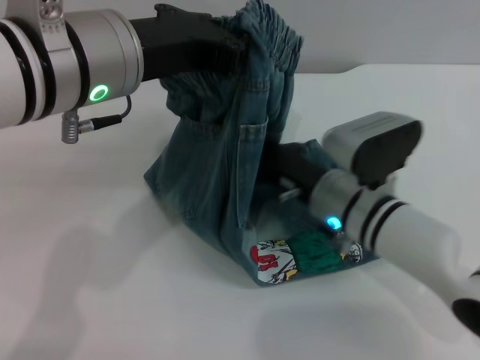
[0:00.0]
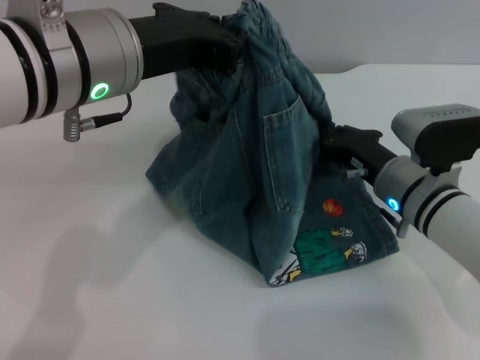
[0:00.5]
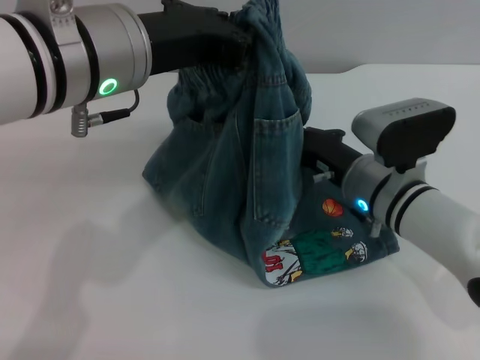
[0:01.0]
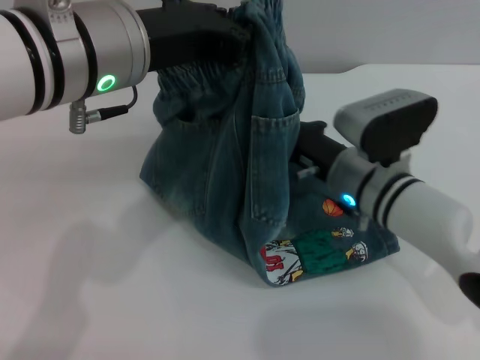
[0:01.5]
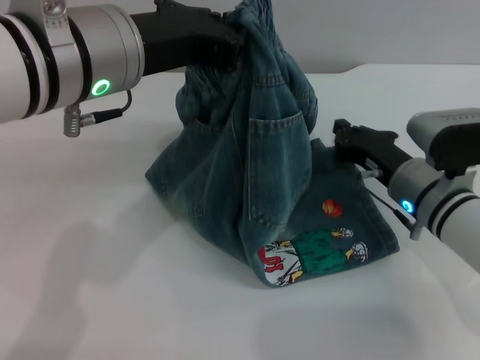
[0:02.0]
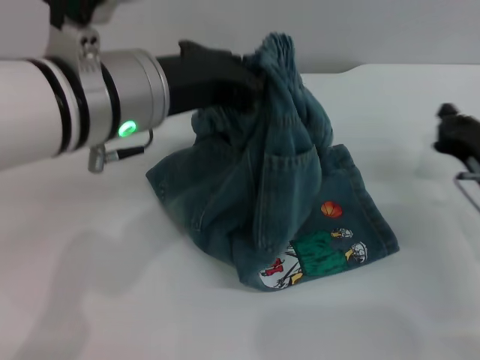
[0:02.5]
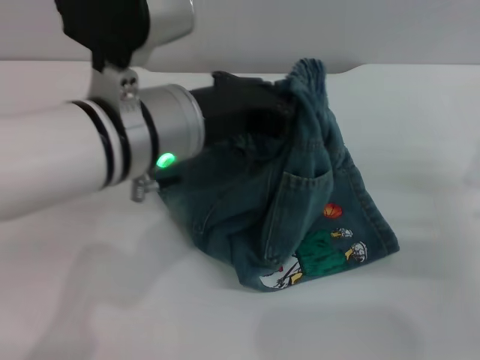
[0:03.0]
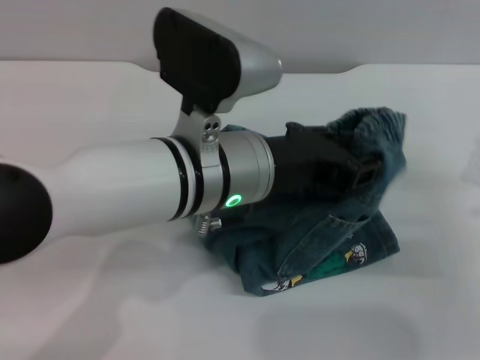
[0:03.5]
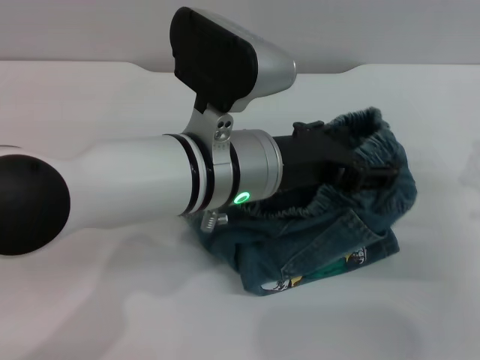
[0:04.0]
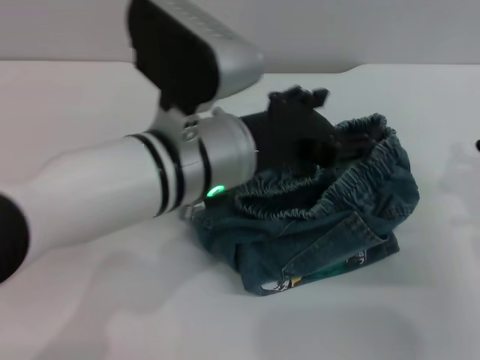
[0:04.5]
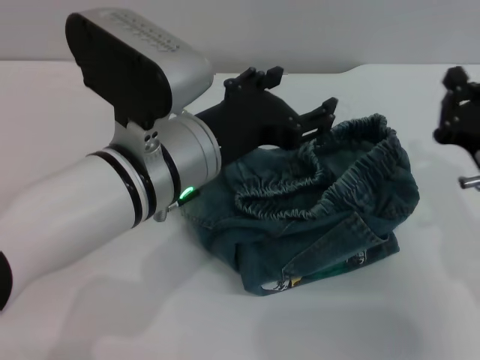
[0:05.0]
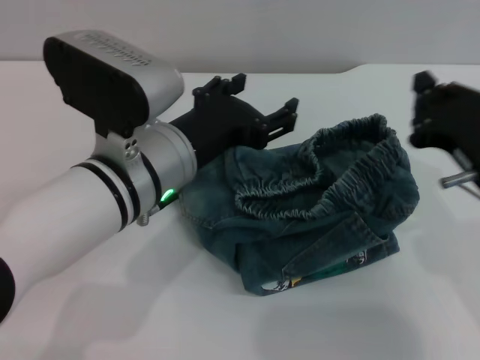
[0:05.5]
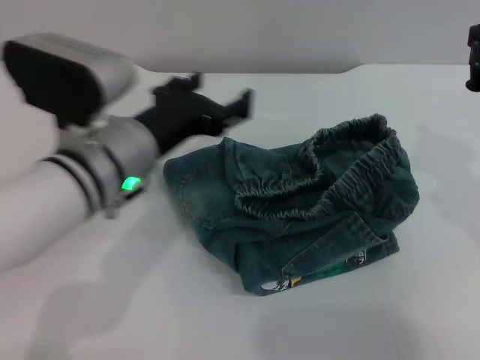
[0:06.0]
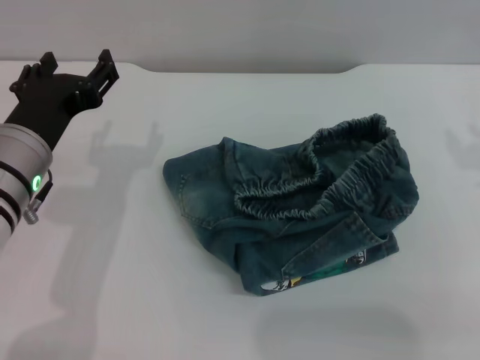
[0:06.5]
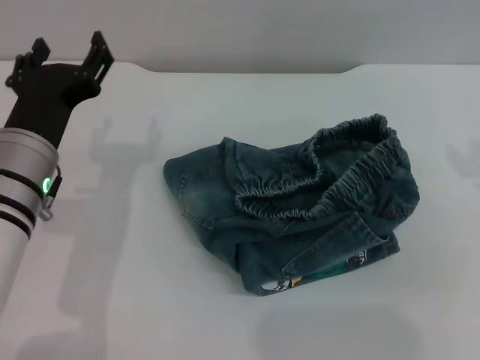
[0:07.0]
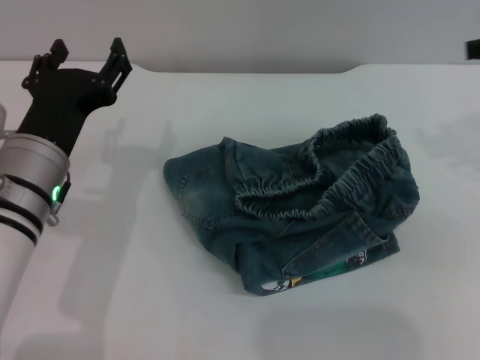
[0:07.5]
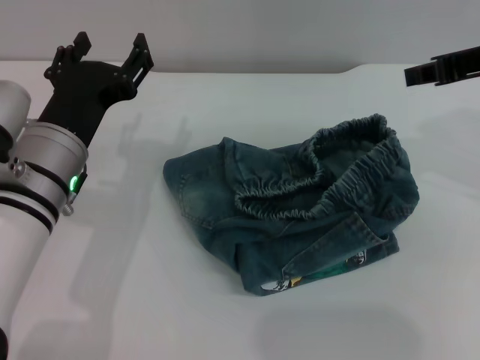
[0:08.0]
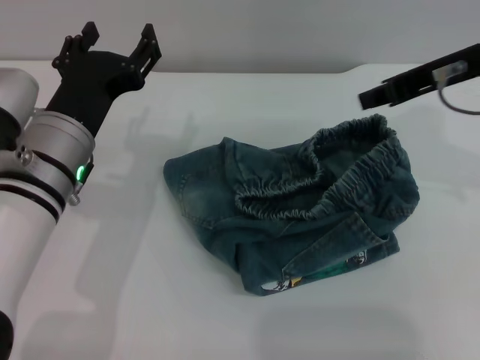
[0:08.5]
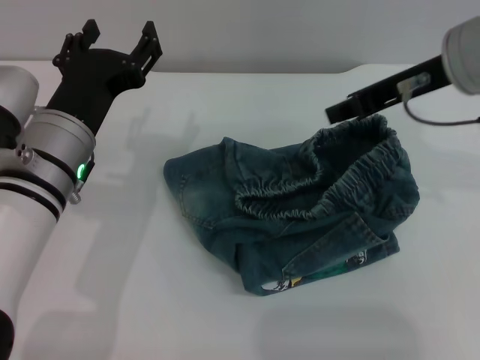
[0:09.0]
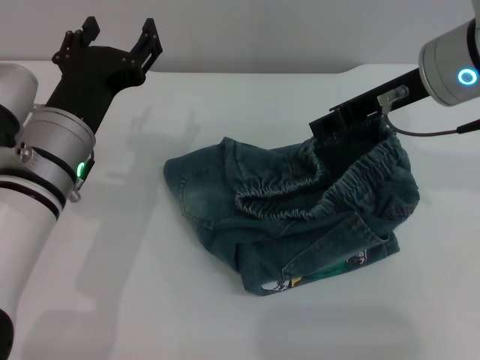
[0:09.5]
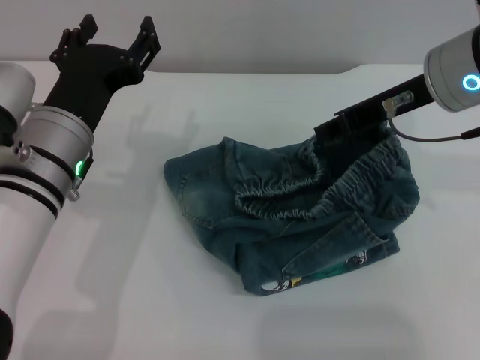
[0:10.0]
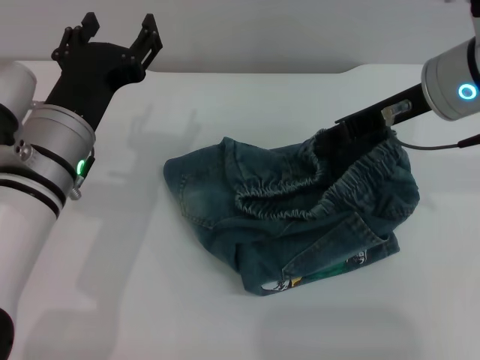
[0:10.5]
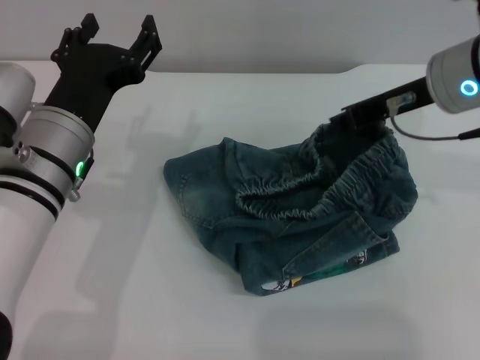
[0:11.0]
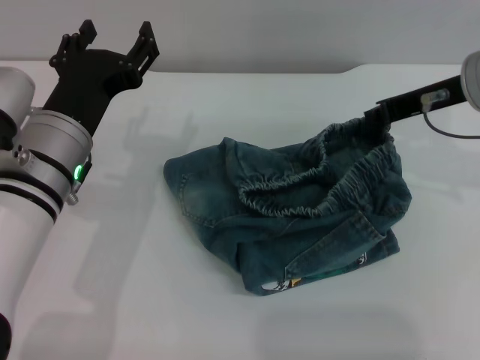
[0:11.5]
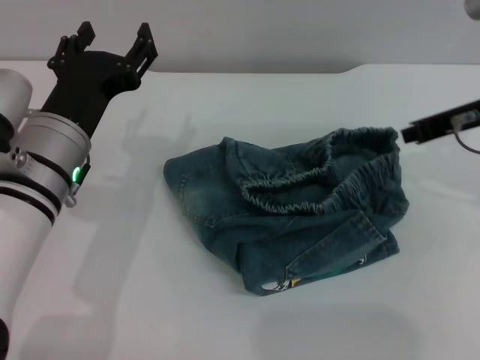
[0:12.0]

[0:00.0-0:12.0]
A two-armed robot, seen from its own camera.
Step, 0:00.0 to 0:04.5: Fold the pants from left to right with the left gripper.
0:00.0 to 0:02.0: The right gripper goes left and right, roughly 10 cm each way, reversing 2 times.
0:02.0 to 0:04.0: The left gripper is displaced to the right and downward by roughly 10 cm, and opens its fingers. The right gripper moves to the right and backward, about 15 cm.
0:04.0 to 0:06.0: The right gripper heads upward and to the left, covering approximately 15 cm. The left gripper travels to the left by about 5 cm.
0:06.0 to 0:08.0: The right gripper shifts some 10 cm forward and upward. The left gripper moves to the left, some 5 cm.
0:08.0 to 0:10.0: The right gripper is displaced to the left by about 5 cm.
0:10.0 to 0:12.0: The right gripper heads to the right, covering roughly 10 cm.

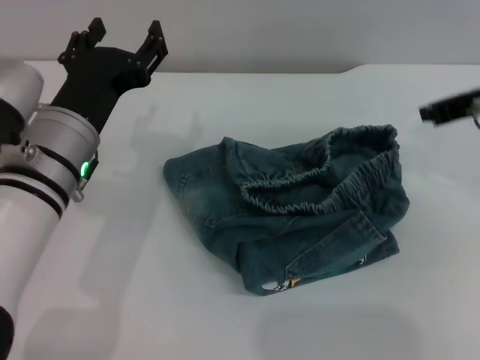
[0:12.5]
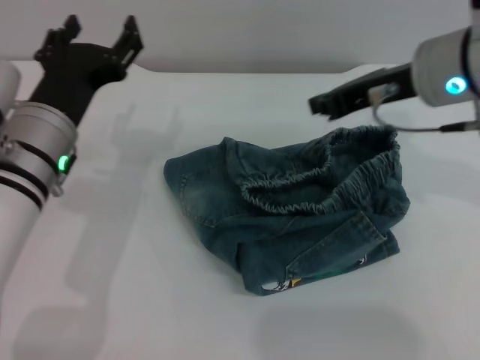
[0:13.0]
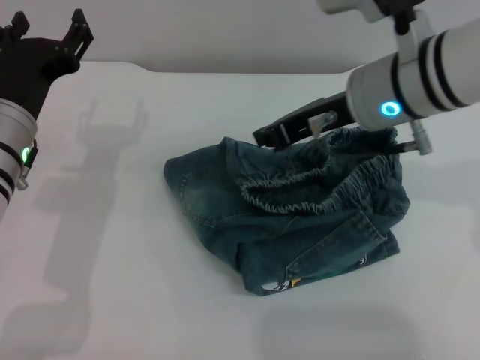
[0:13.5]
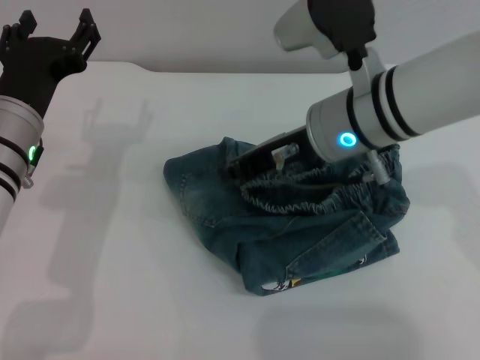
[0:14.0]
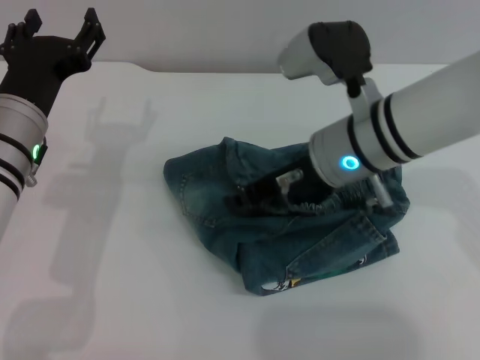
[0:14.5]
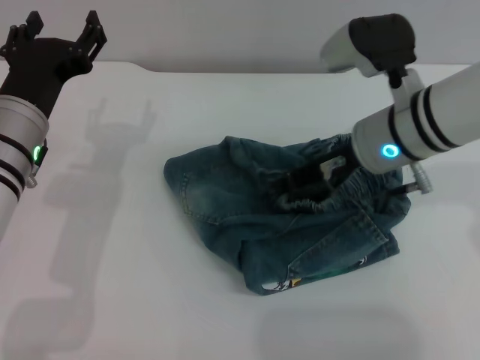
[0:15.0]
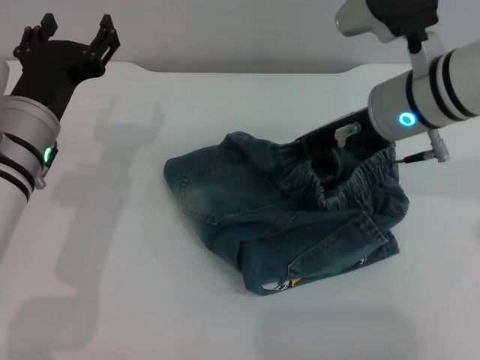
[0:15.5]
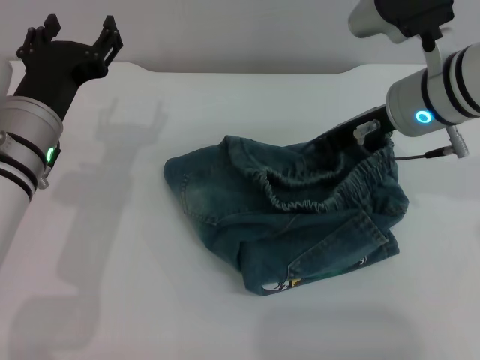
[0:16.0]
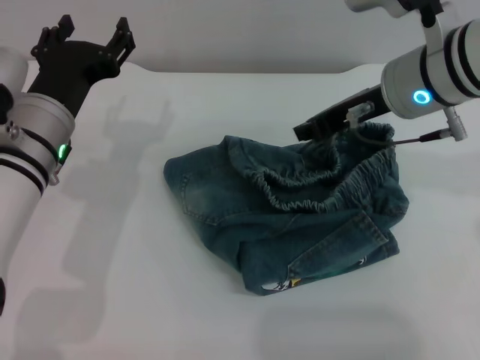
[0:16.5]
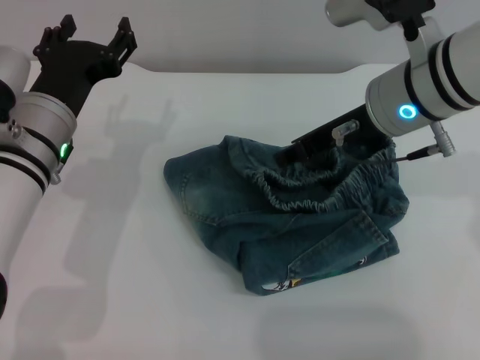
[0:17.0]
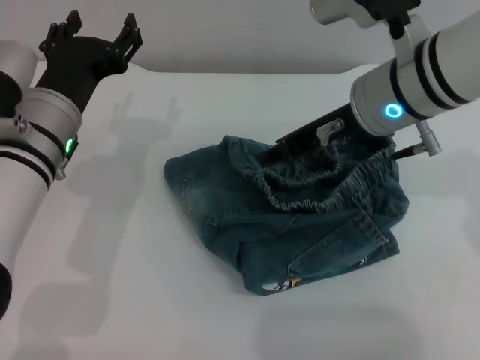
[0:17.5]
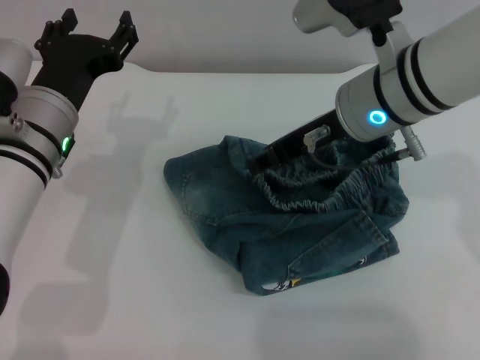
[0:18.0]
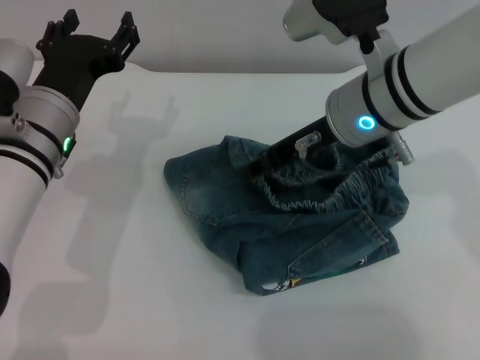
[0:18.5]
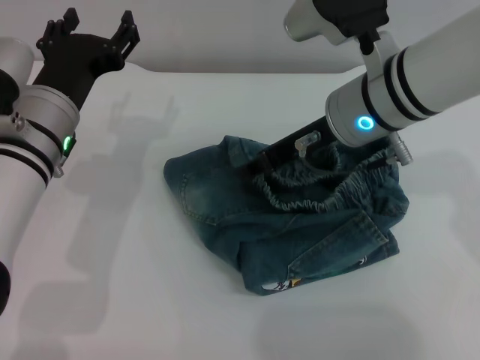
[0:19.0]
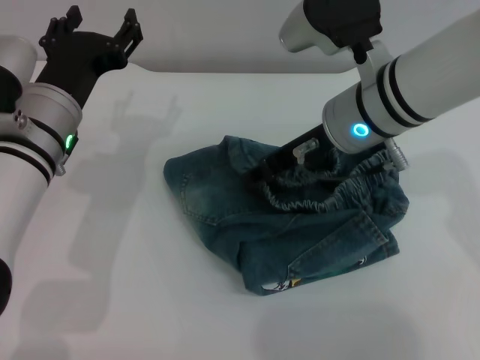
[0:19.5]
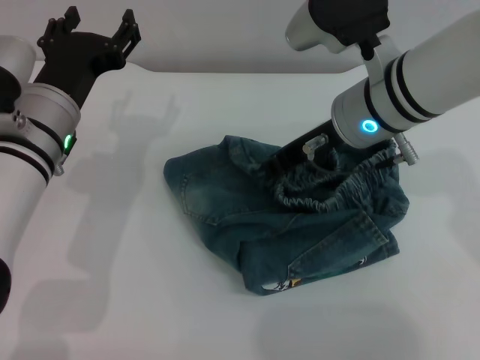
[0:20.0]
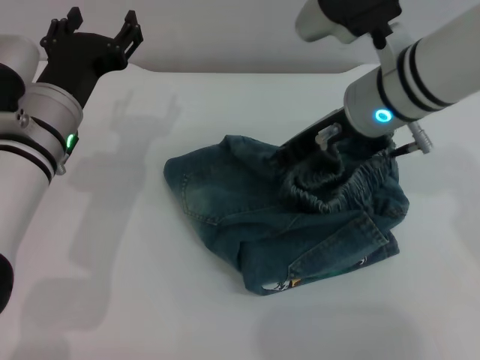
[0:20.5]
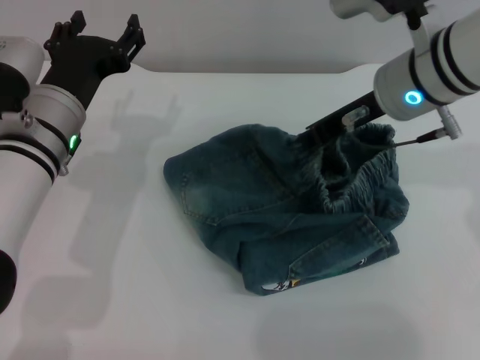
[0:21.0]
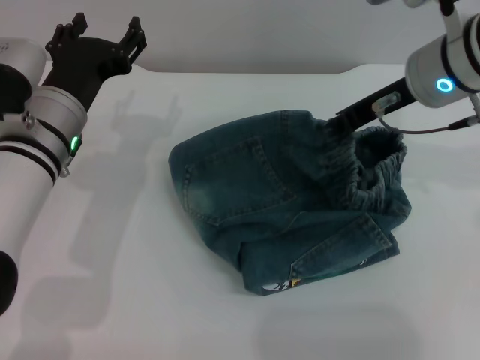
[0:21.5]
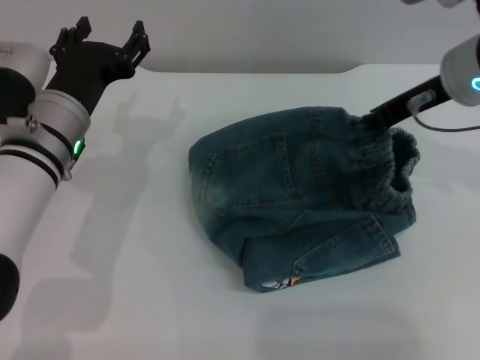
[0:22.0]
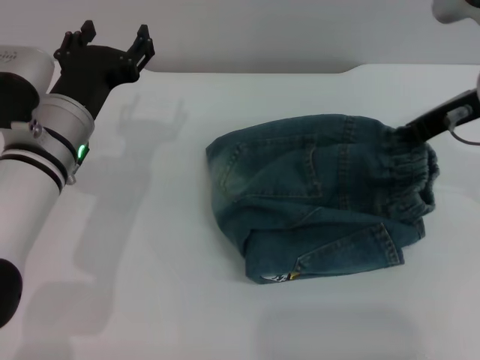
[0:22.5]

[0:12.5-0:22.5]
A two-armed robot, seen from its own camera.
0:12.5 to 0:14.5: The right gripper shifts roughly 15 cm to the left.
0:14.5 to 0:16.5: The right gripper moves to the right and upward, roughly 5 cm.
0:16.5 to 0:18.5: The right gripper opens.
0:18.5 to 0:20.5: The right gripper closes.
0:20.5 to 0:22.5: The right gripper goes roughly 10 cm to the right.

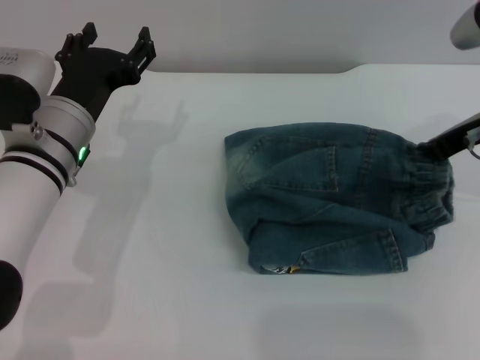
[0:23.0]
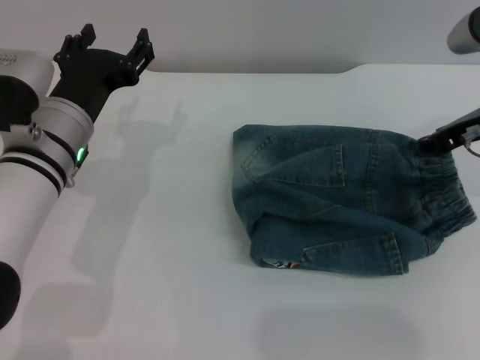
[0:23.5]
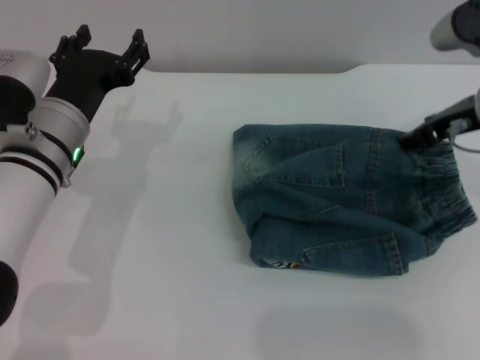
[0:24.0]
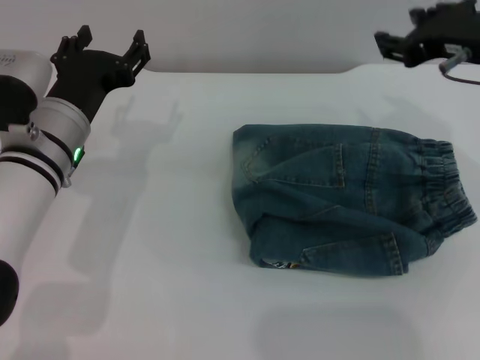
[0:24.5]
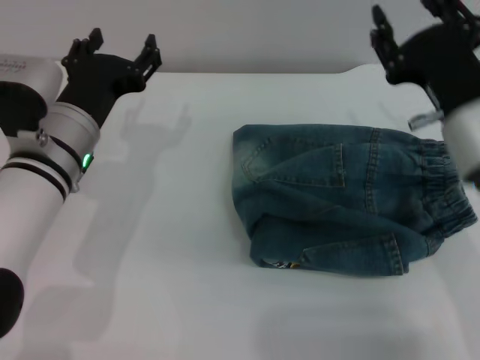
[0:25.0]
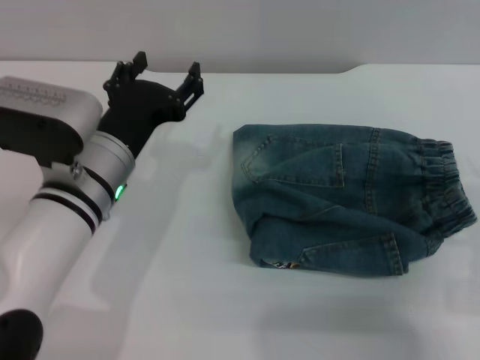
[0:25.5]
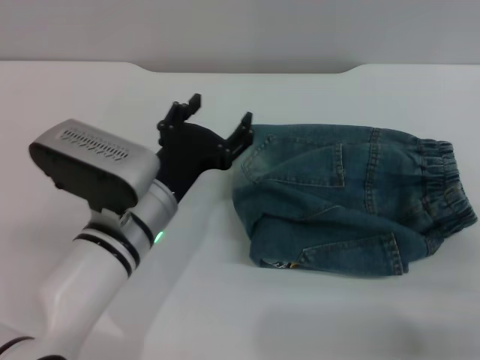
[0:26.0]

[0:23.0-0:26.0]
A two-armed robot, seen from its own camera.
0:23.0 to 0:24.5: The right gripper changes place by some 5 cm, and opens up.
0:24.5 to 0:26.0: The right gripper shifts approximately 25 cm backward, downward and to the right, and closes its fingers; the left gripper travels to the right and backward by approximately 10 cm.
